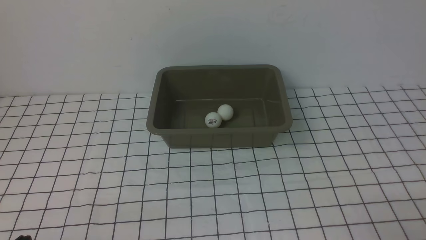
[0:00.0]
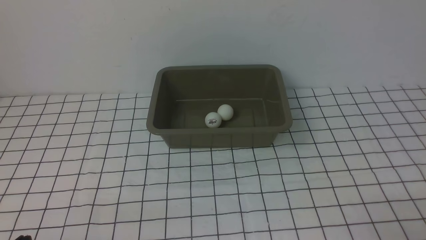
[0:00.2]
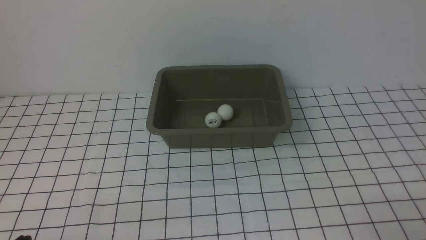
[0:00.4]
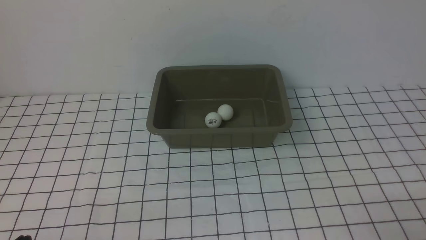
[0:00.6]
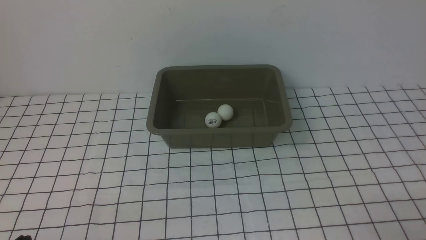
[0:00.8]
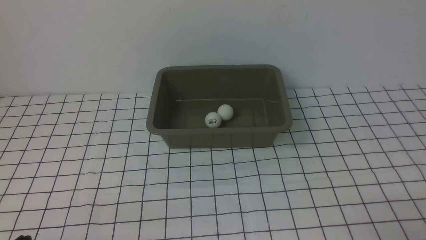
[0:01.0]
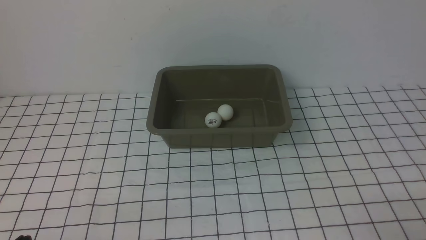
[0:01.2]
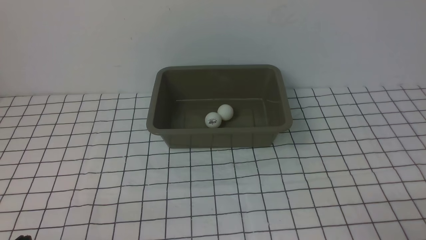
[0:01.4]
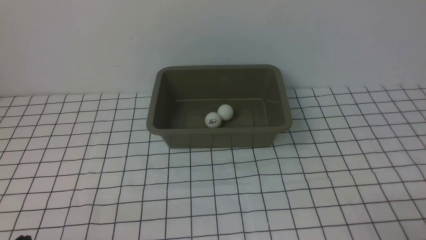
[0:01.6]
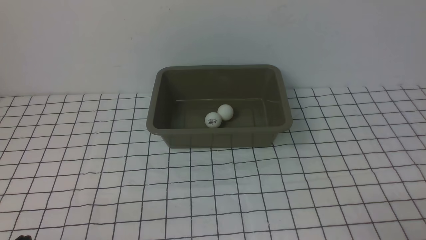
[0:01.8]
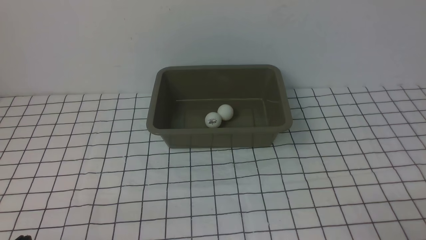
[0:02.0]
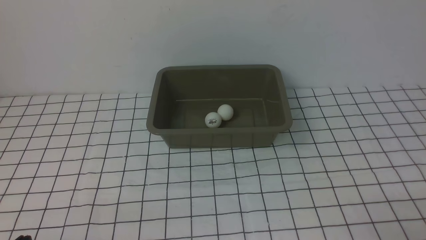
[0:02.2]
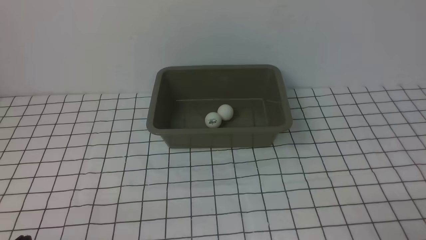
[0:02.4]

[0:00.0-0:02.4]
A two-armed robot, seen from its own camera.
0:00.0 to 0:02.4: Neither gripper changes place.
